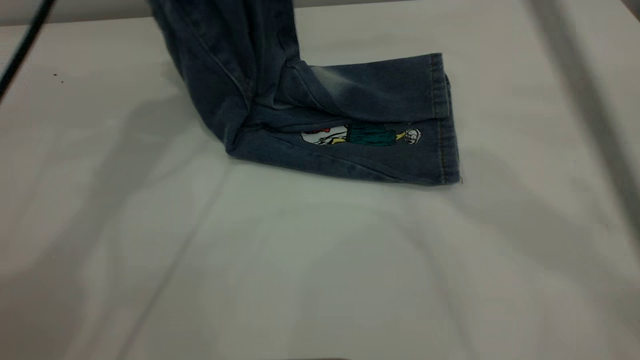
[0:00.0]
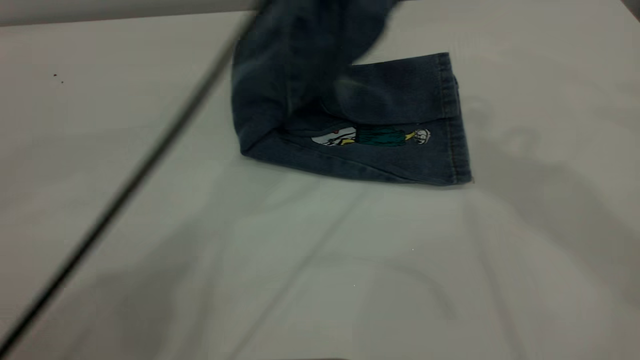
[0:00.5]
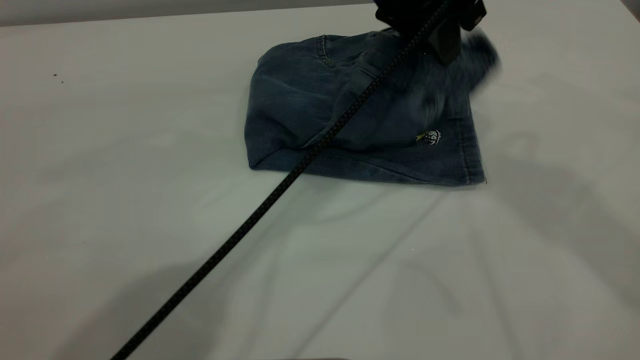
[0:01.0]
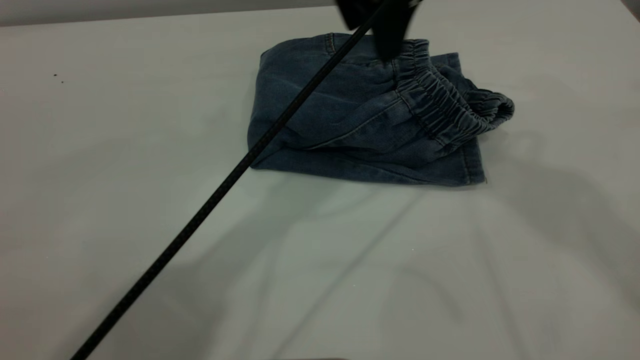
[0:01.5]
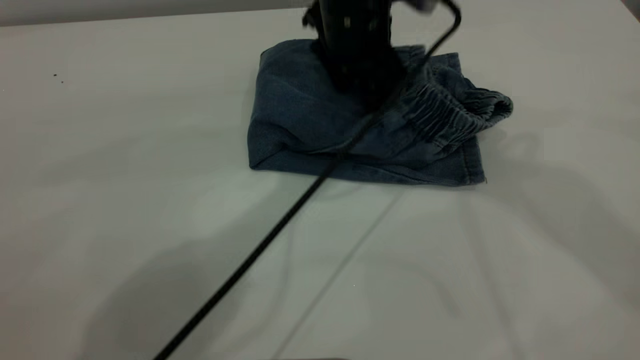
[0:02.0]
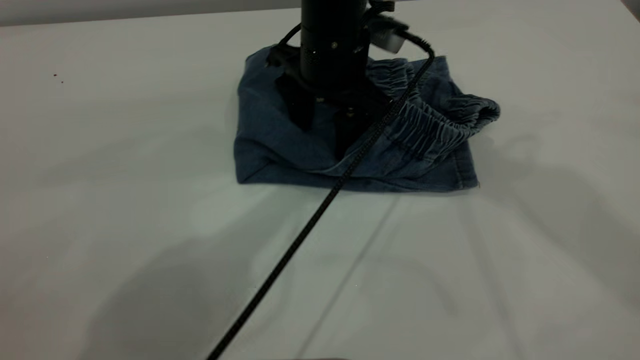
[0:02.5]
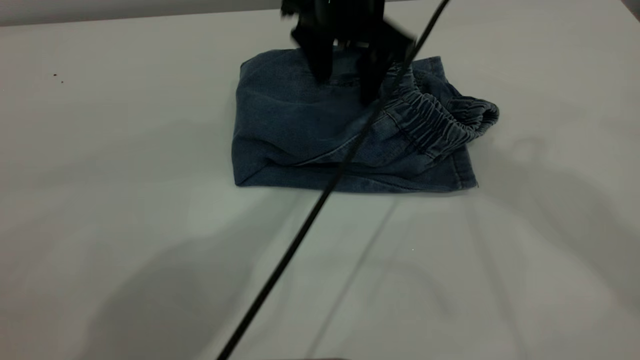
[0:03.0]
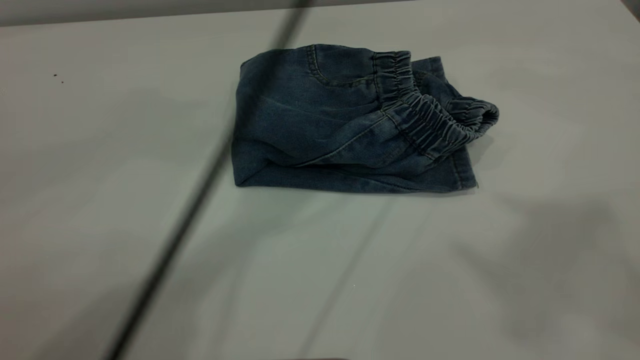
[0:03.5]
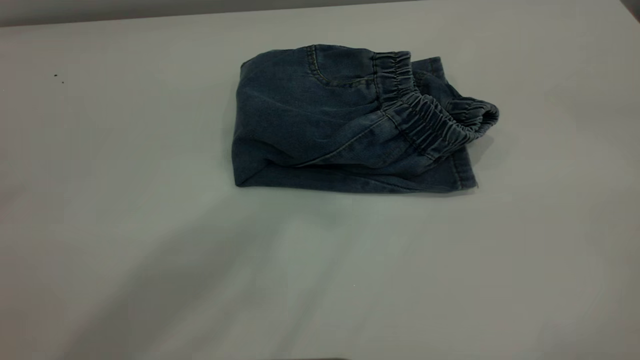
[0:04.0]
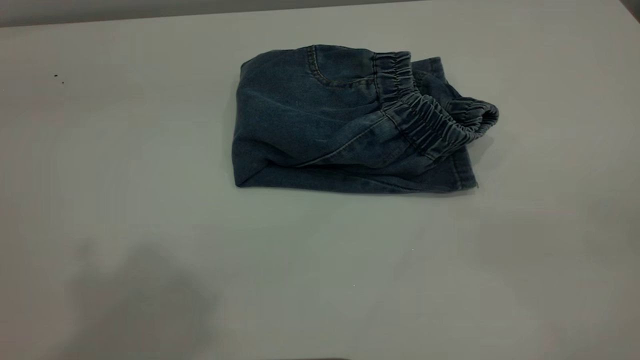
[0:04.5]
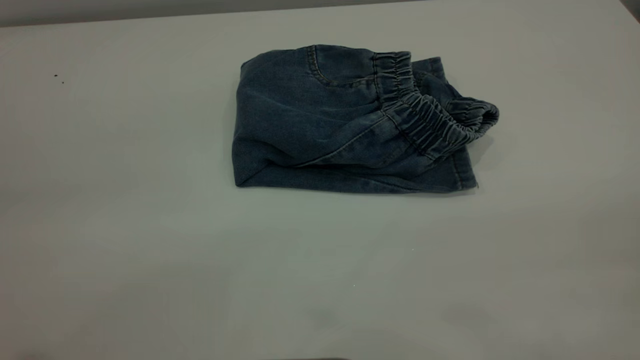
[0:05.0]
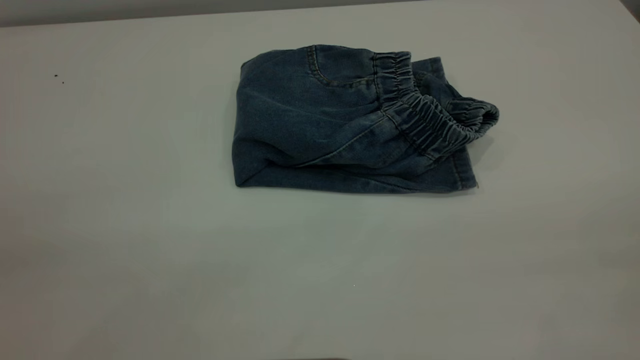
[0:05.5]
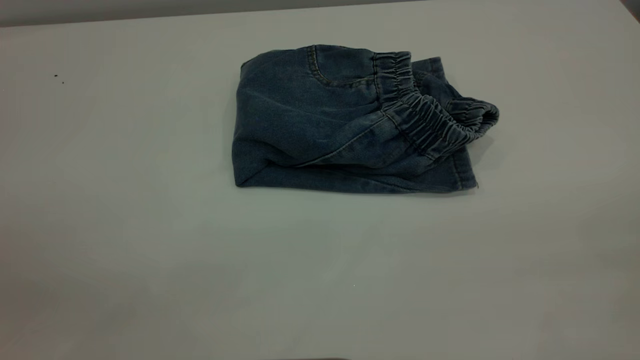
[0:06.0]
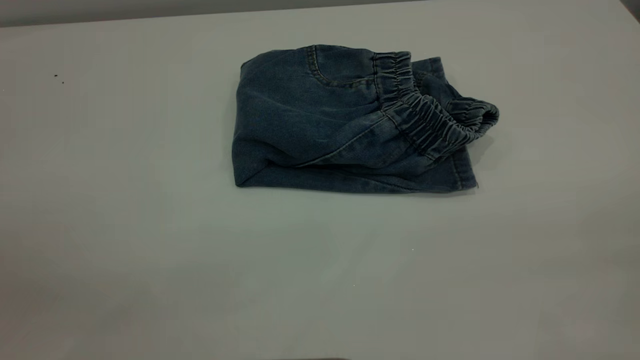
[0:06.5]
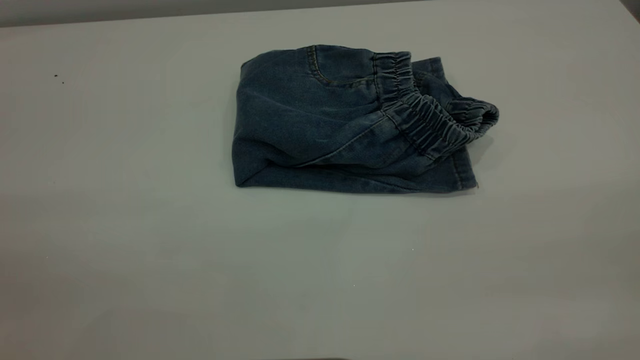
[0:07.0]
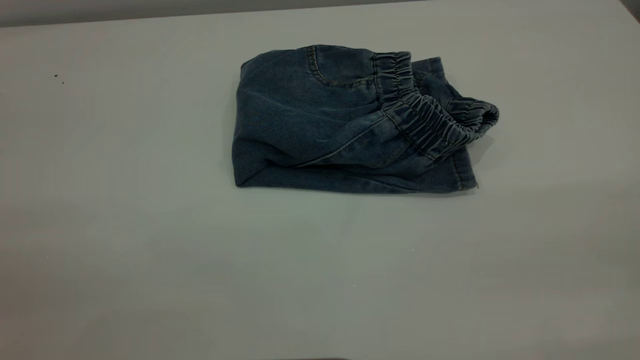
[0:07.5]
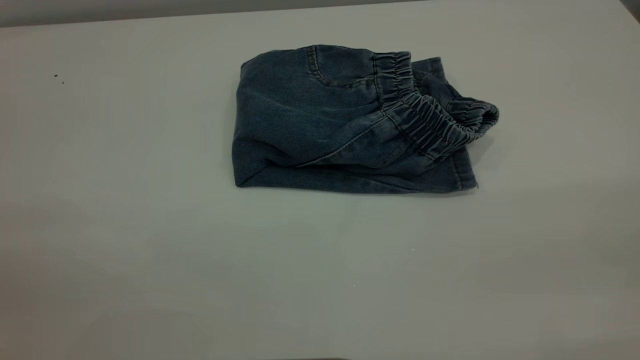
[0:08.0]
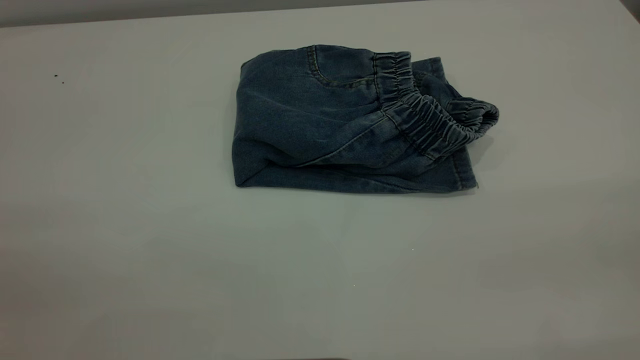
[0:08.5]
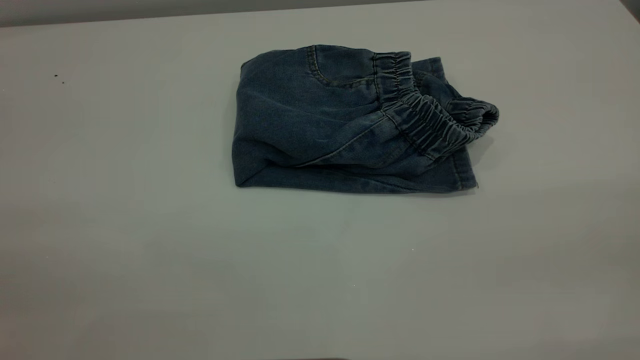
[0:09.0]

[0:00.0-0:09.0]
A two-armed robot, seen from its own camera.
0:00.0 to 0:02.0: The right gripper moves upward, about 5 cm. The left gripper heads downward and to the right, covering some 25 cm, and opens.
0:02.0 to 0:04.5: The left gripper is displaced upward, backward and to the left by approximately 50 cm, while the right gripper heads backward and to the right, covering roughly 40 cm.
